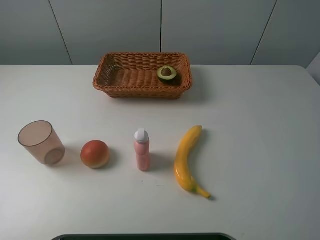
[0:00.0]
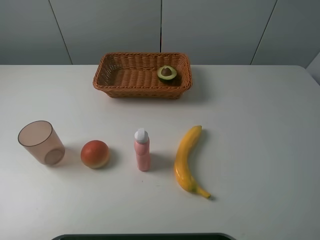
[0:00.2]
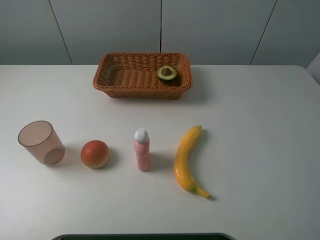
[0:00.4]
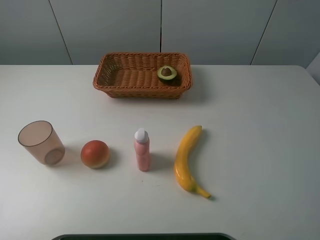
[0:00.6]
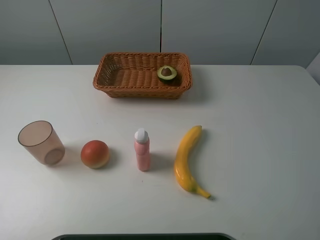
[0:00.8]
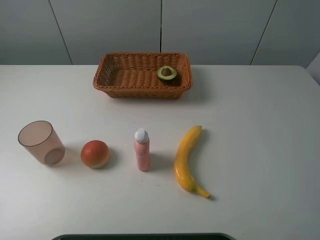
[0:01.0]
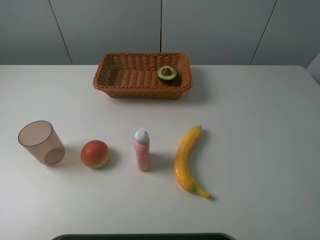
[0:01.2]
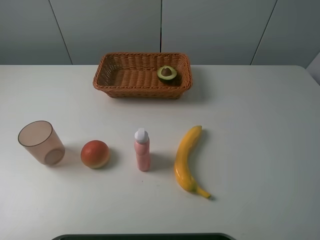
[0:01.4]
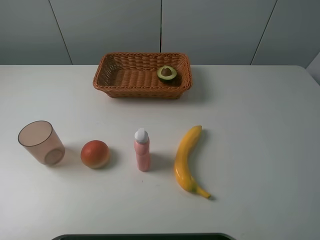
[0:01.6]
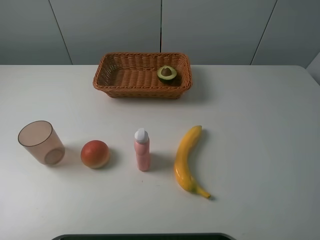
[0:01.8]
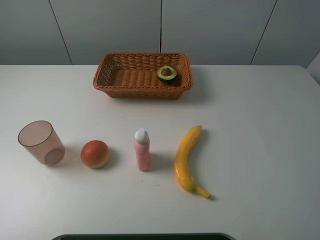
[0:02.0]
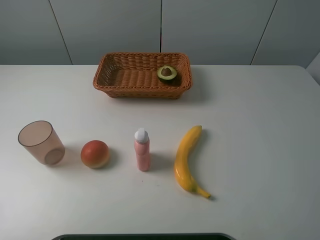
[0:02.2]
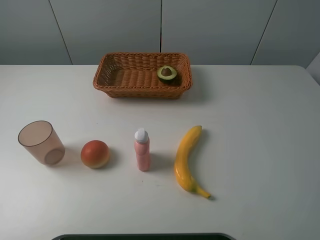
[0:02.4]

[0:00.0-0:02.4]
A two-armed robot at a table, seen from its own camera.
Task of the whole recording: randomly pick up an item from the table and put it in the basket.
0:01.2 to 0:02.4: Neither gripper changes place.
